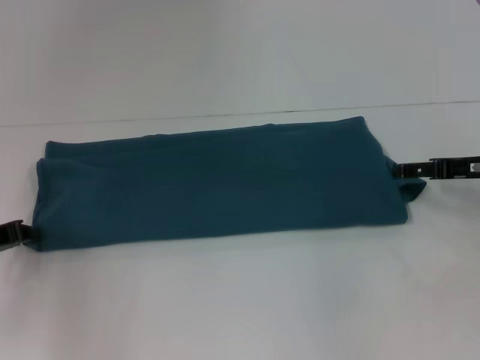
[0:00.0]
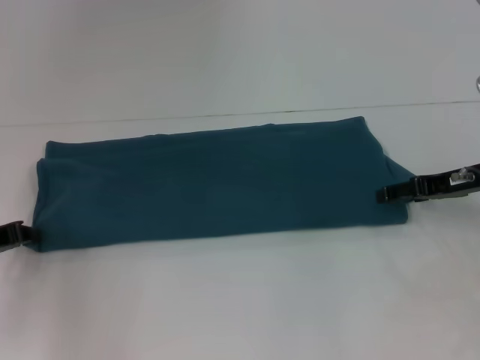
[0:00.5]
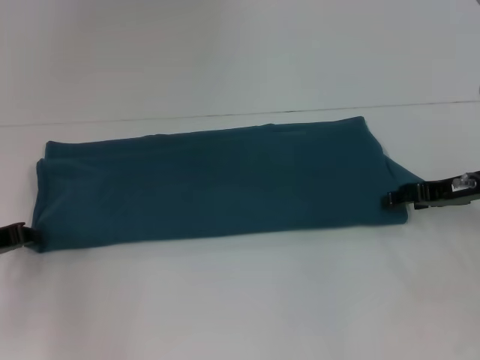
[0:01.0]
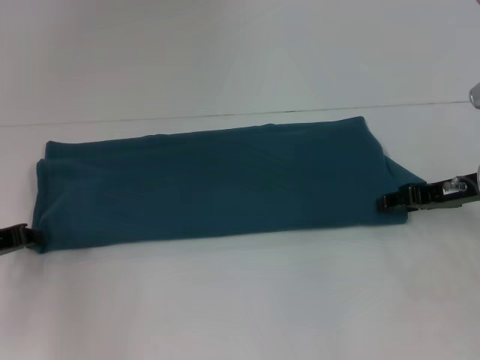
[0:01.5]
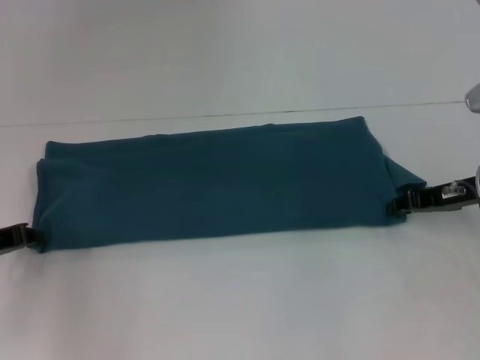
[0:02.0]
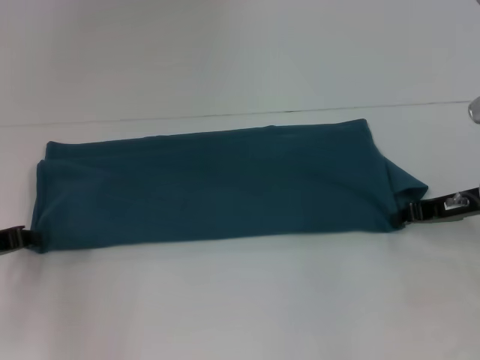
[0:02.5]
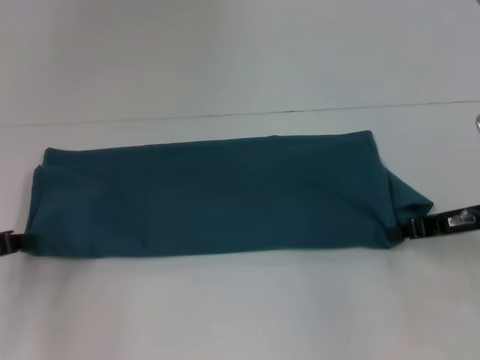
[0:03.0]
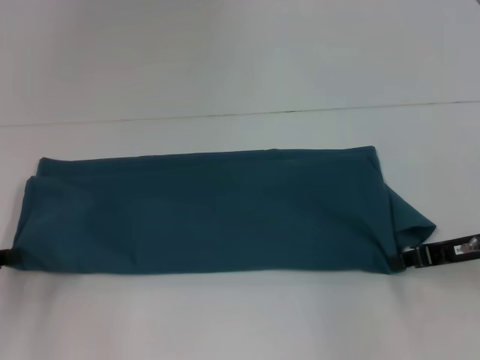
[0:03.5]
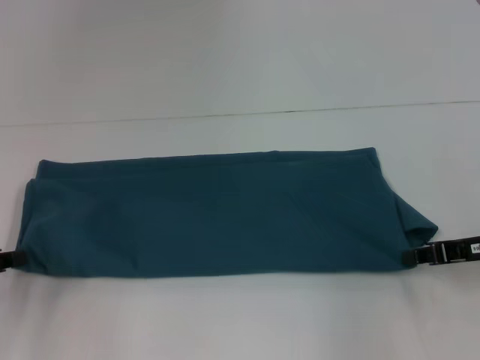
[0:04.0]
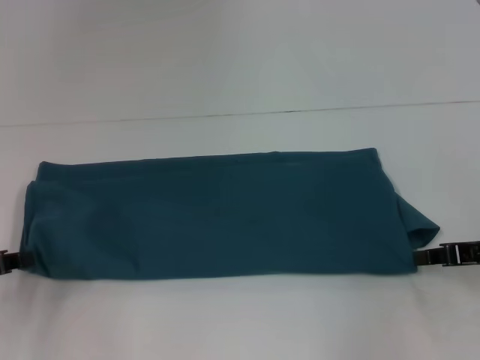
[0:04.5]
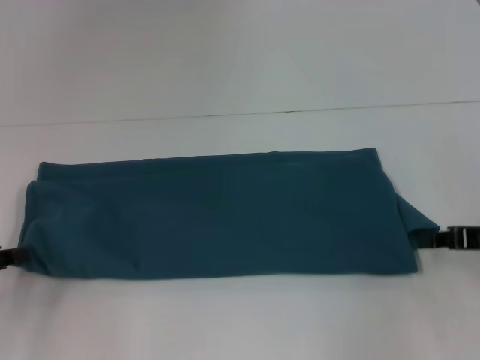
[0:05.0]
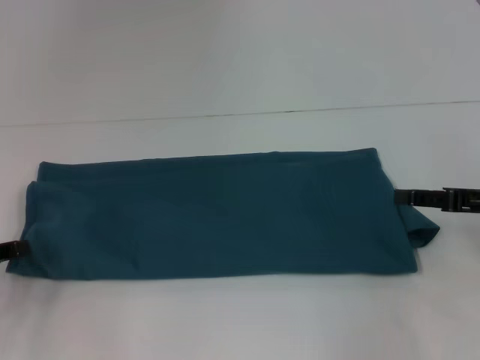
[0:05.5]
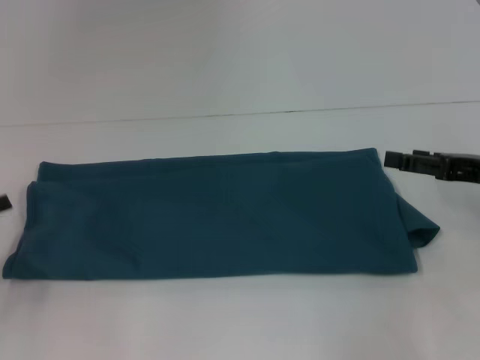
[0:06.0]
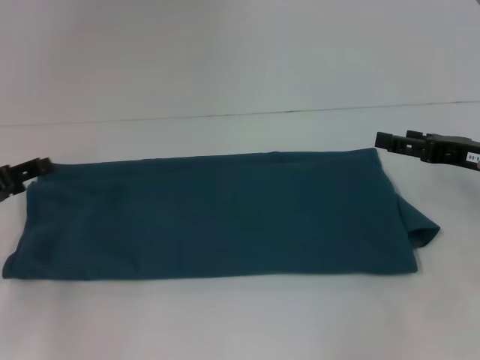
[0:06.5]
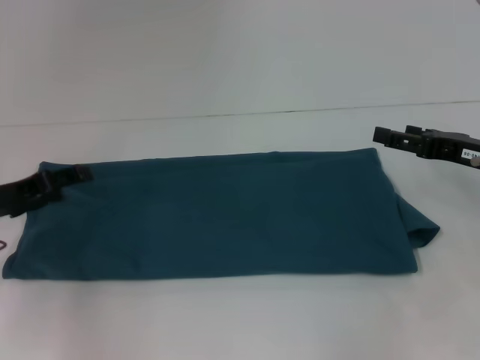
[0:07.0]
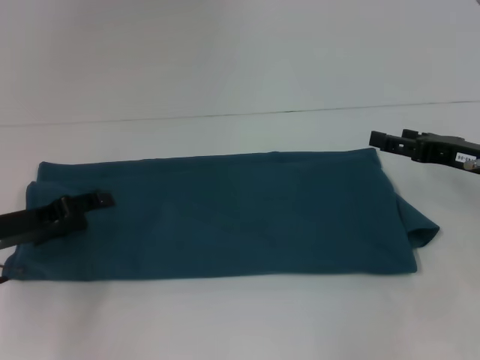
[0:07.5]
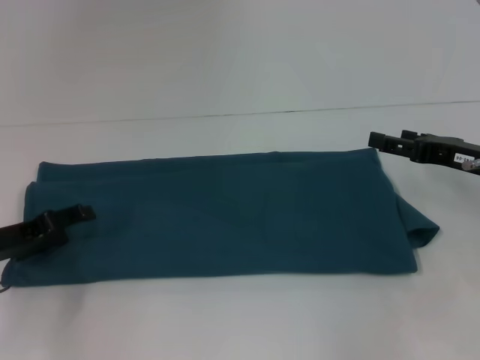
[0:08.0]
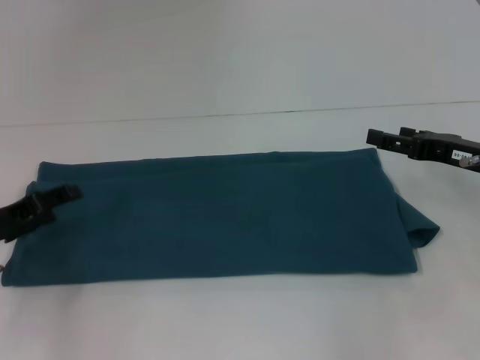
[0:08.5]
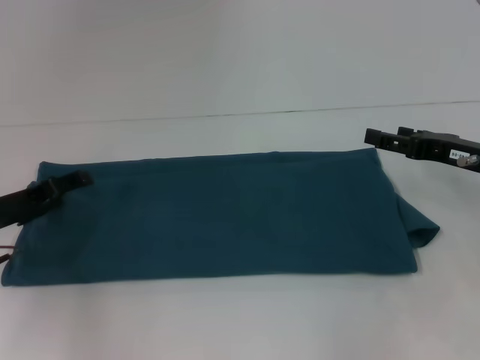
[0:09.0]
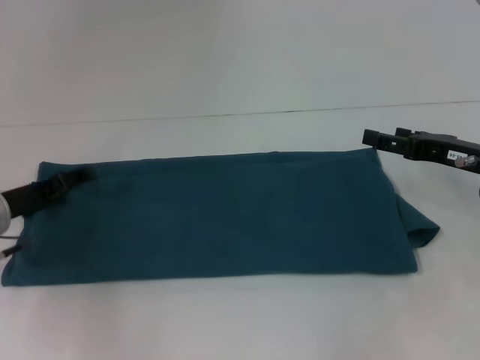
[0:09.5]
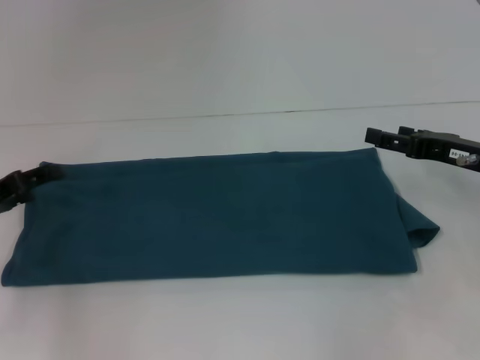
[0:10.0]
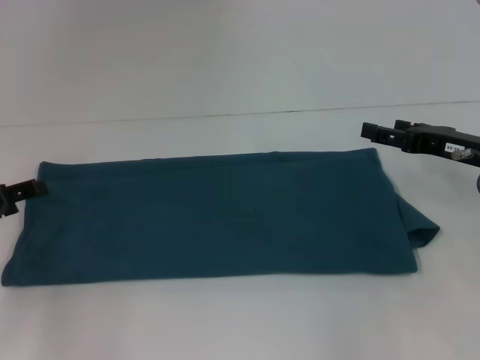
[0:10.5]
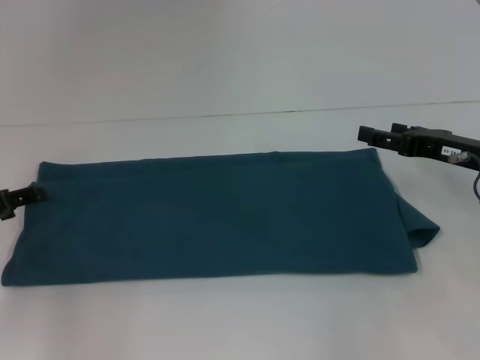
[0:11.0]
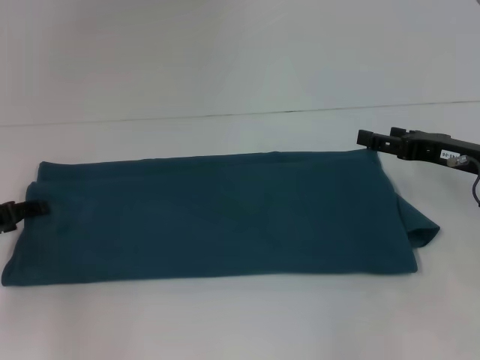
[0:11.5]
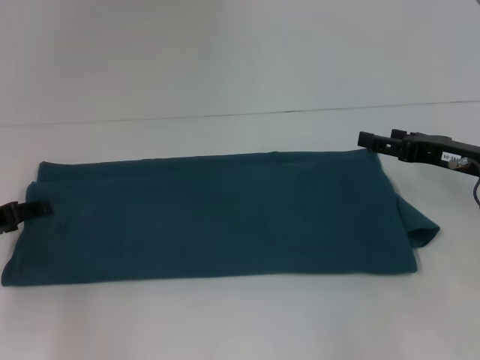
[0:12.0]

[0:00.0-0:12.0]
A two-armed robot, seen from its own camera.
Step, 0:00.0 to 0:04.0: Pull the clothes with your left hand.
Step, 0:00.0 to 0:04.0: Pull the clothes with your right hand.
0:00.0 to 0:02.0: The right gripper closes up.
0:02.0 to 0:04.0: The left gripper changes place by some 5 cm. The right gripper heads backward, covering roughly 5 cm, and closes its fingers.
0:04.0 to 0:06.0: The left gripper opens. The right gripper opens up.
0:06.0 to 0:08.0: The left gripper is displaced to the right by about 5 cm, and opens its fingers.
0:08.0 to 0:12.0: There are only small adjustments of the grippers.

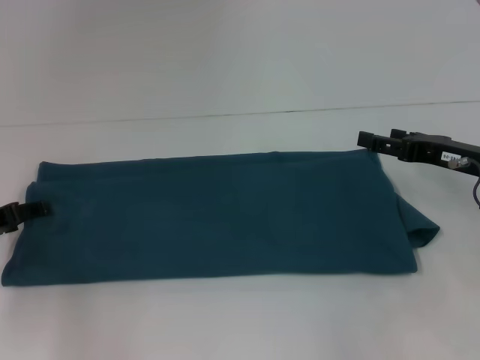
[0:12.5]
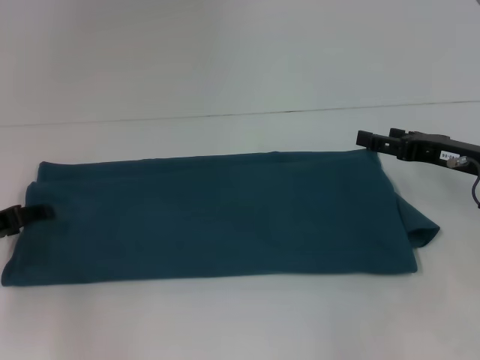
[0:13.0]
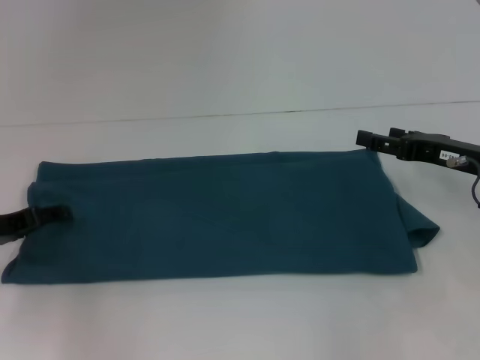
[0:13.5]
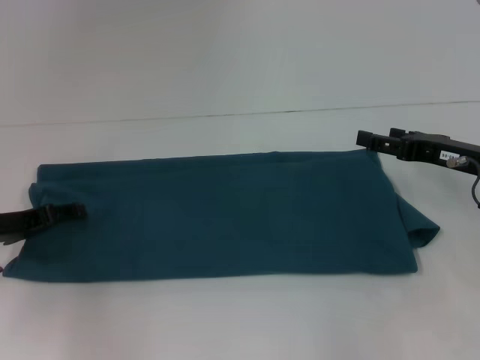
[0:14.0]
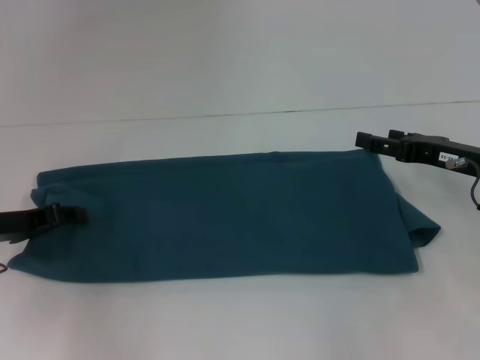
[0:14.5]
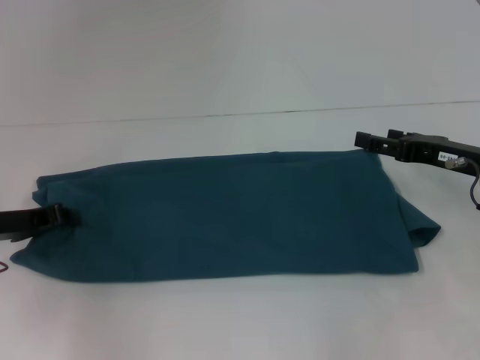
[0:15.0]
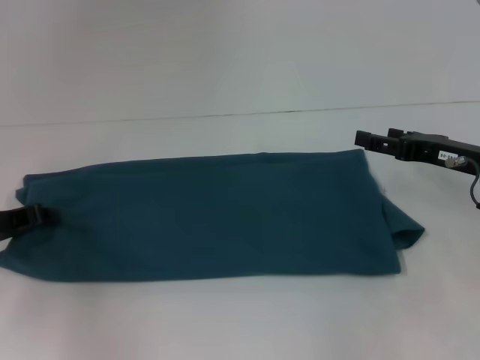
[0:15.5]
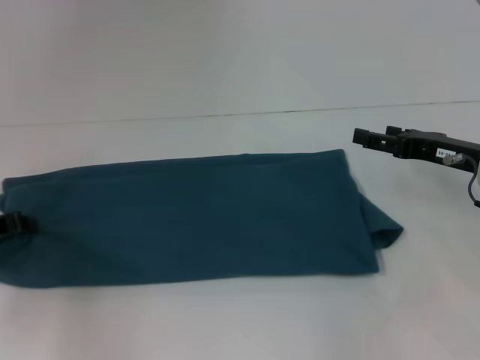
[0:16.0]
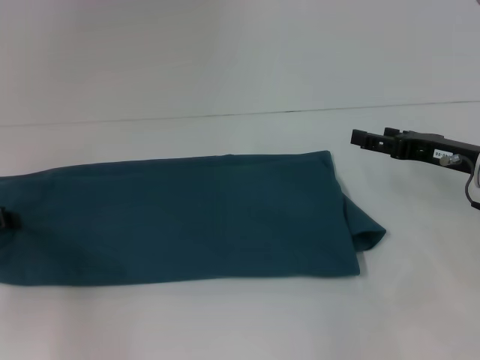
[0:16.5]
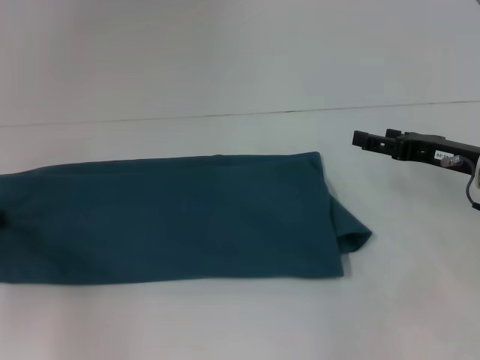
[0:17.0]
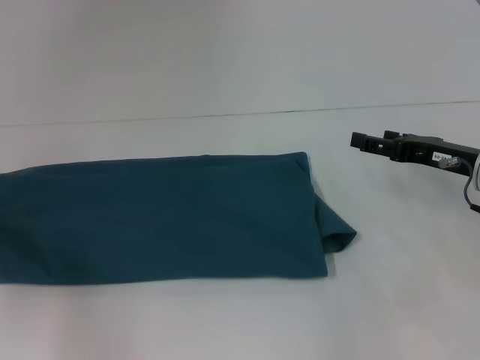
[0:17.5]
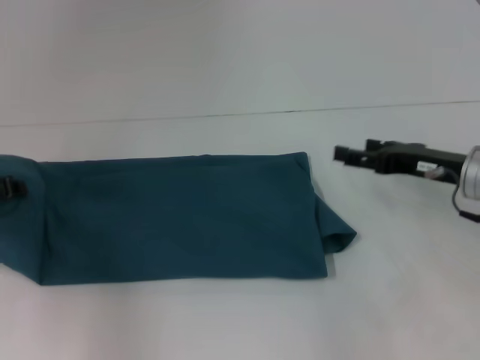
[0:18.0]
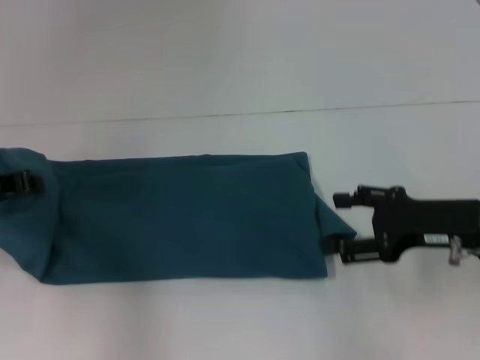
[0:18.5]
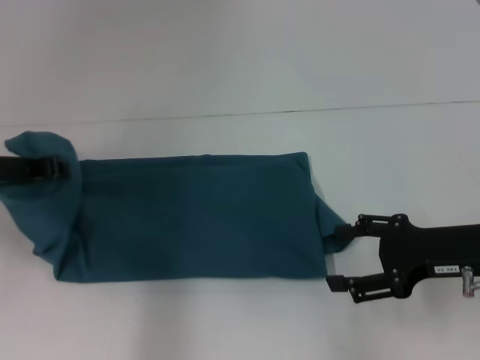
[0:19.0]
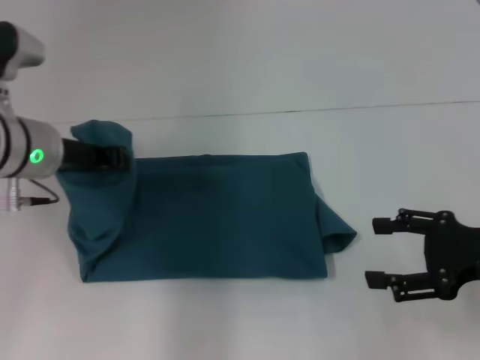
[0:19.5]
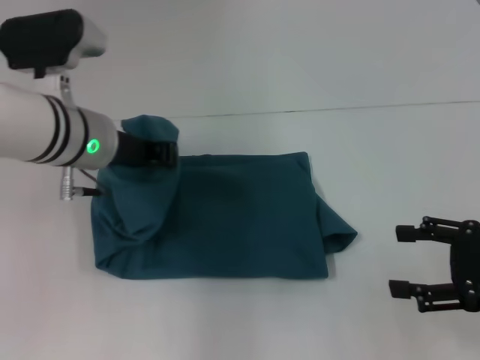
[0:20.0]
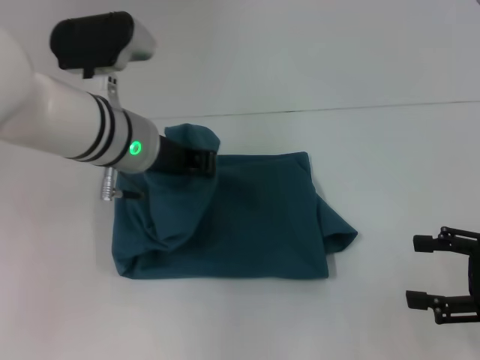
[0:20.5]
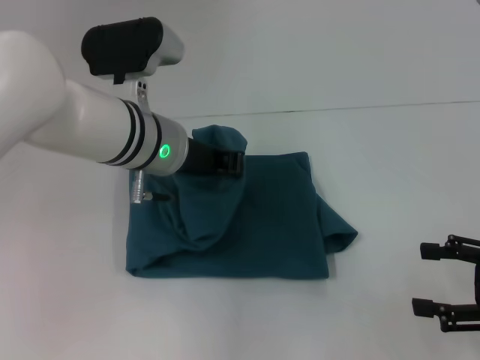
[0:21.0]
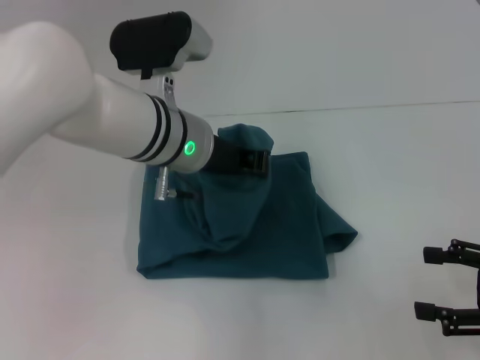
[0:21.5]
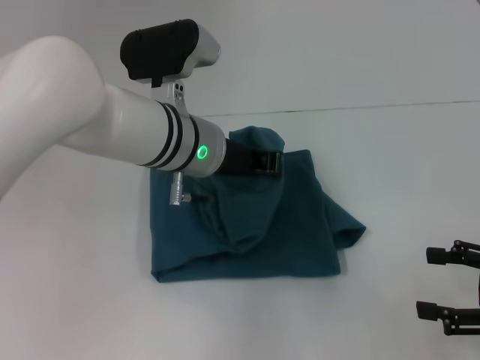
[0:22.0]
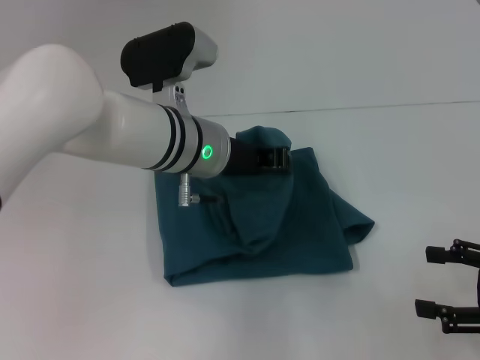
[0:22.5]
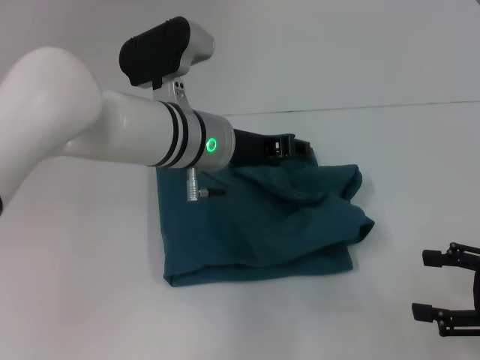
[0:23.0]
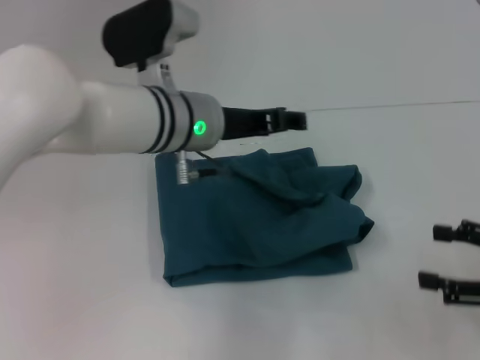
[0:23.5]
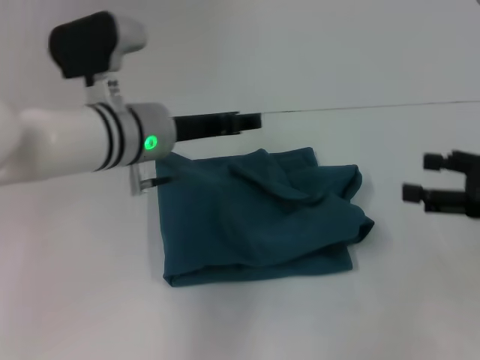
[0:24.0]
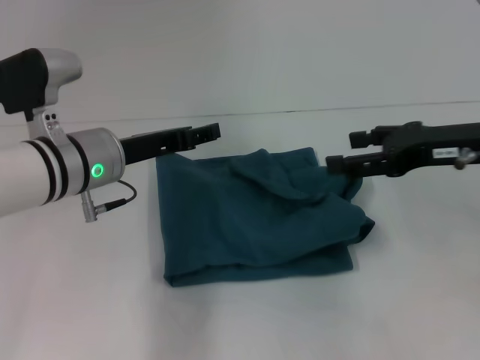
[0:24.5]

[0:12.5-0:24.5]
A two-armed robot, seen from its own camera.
Step, 0:12.5 to 0:23.0: Fold the clothes to the left.
0:12.5 to 0:14.5: There are only small adjustments of the grippers.
0:14.5 to 0:16.5: The left gripper closes.
0:16.5 to 0:18.5: The right gripper moves backward, some 5 cm; the left gripper ends up some 5 cm from where it was.
0:18.5 to 0:20.5: The left gripper is displaced to the right by some 20 cm; the right gripper moves backward and to the right, approximately 10 cm.
0:20.5 to 0:22.5: The left gripper moves to the right, approximately 5 cm.
0:22.5 to 0:24.5: The left gripper is displaced to the left by roughly 10 cm, and opens up. The right gripper goes about 15 cm forward, upward and to the left.

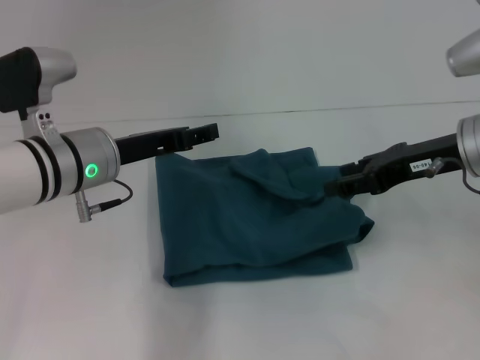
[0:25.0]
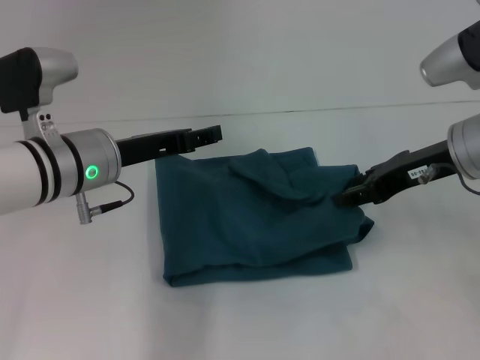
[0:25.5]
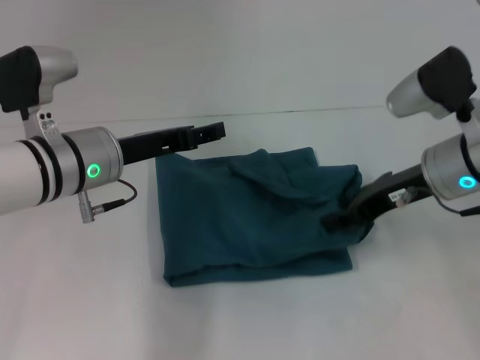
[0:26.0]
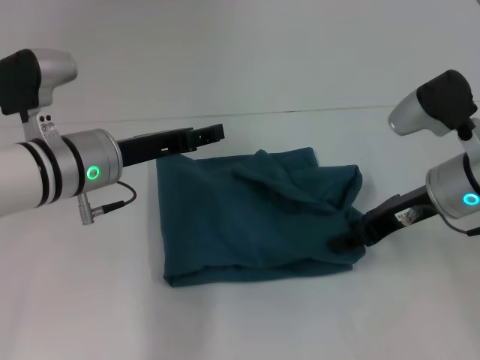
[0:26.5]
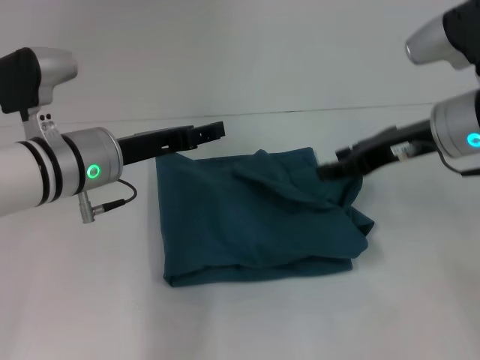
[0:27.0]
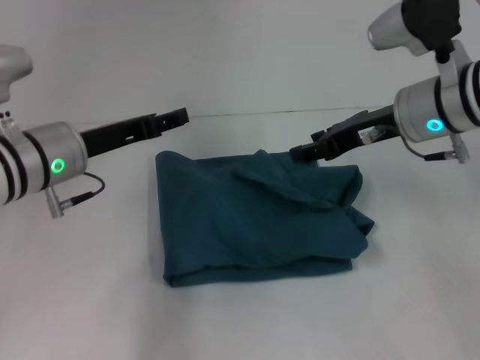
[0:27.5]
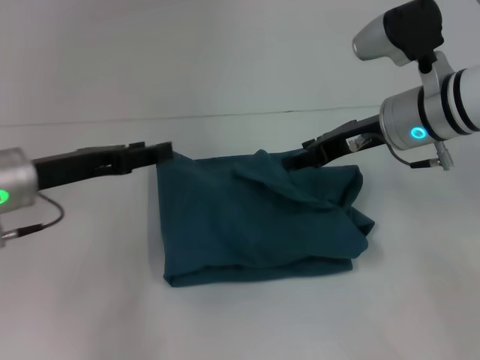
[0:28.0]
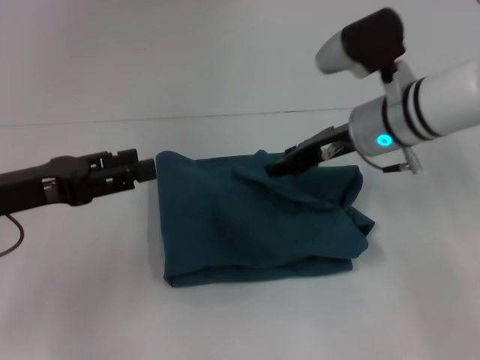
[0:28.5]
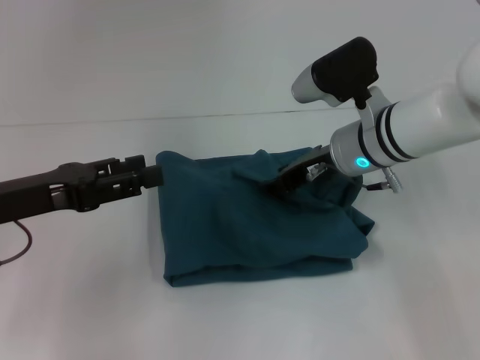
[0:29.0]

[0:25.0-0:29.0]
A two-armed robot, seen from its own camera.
0:25.0 to 0:27.0: The grippers stay close to where they were, moving slightly.
0:27.0 to 0:29.0: The right gripper is displaced to the left and downward by approximately 10 cm, while the left gripper heads to the left and backward, covering approximately 10 cm.
